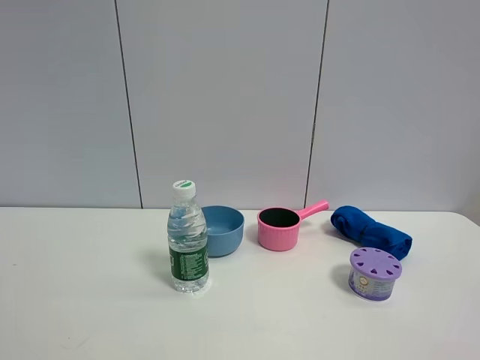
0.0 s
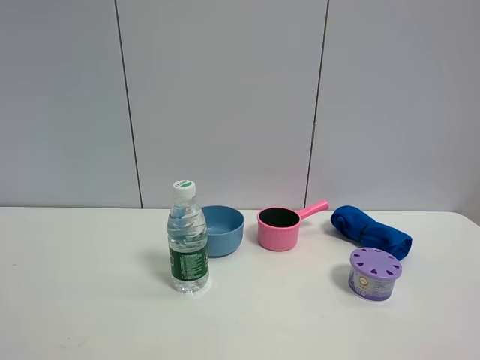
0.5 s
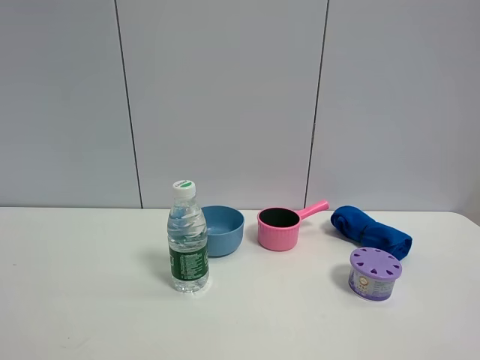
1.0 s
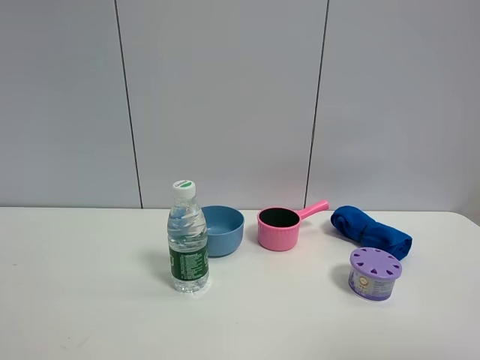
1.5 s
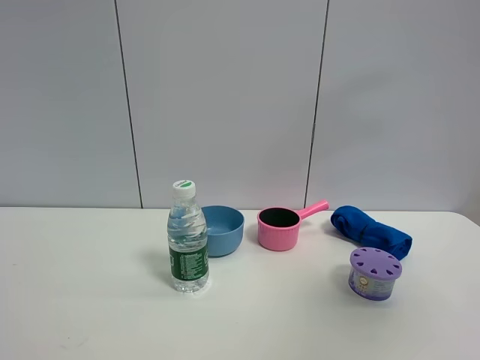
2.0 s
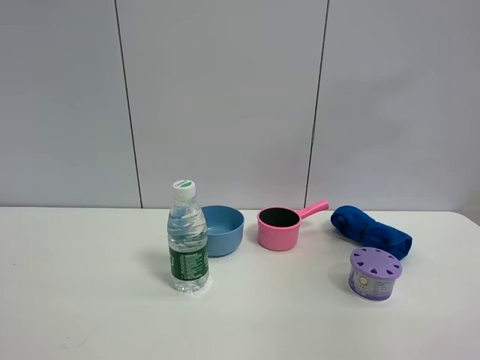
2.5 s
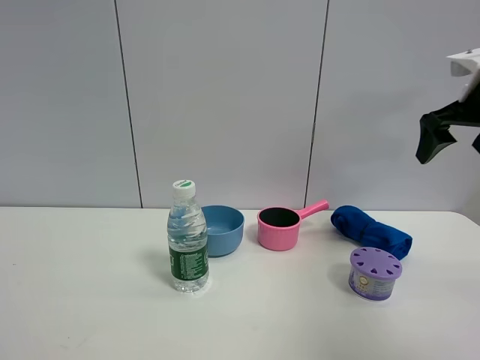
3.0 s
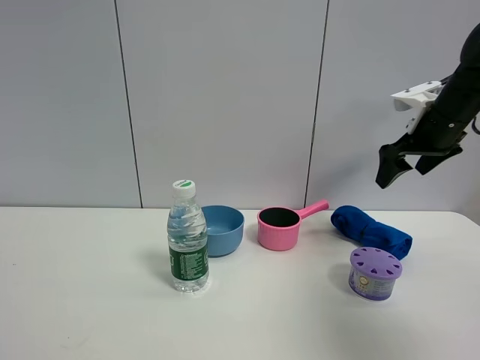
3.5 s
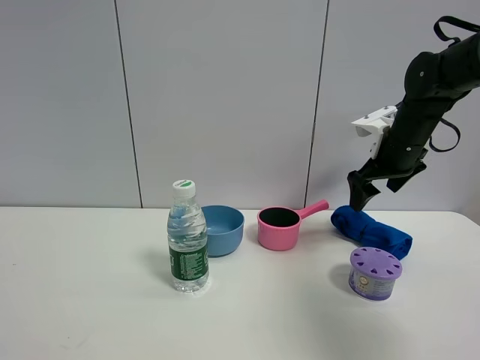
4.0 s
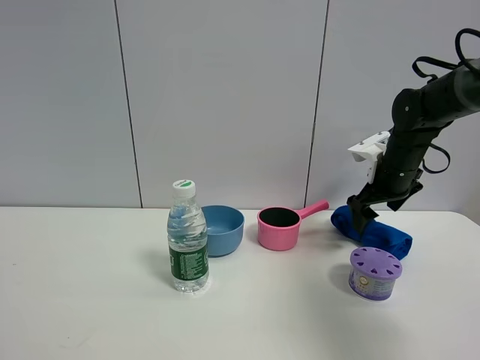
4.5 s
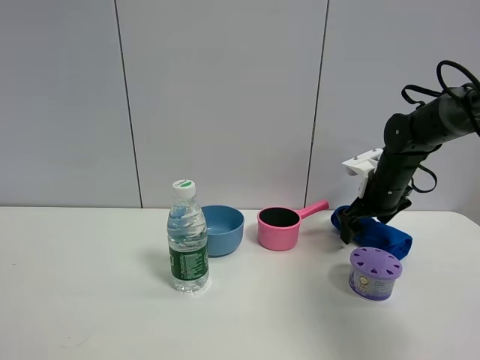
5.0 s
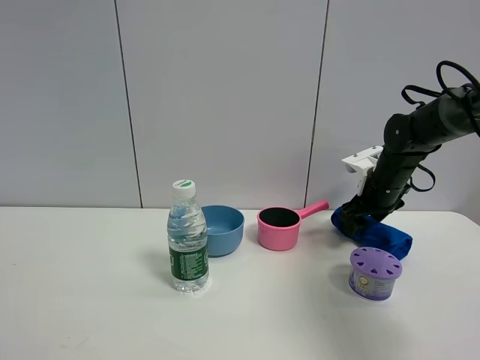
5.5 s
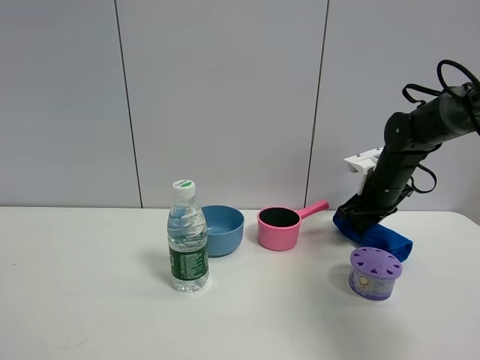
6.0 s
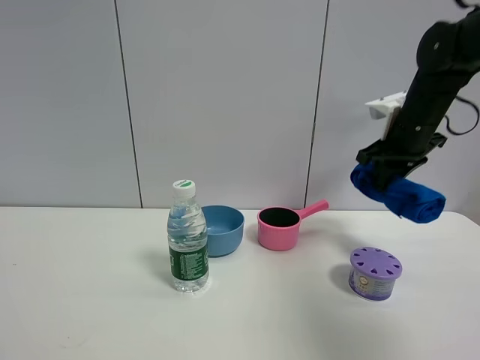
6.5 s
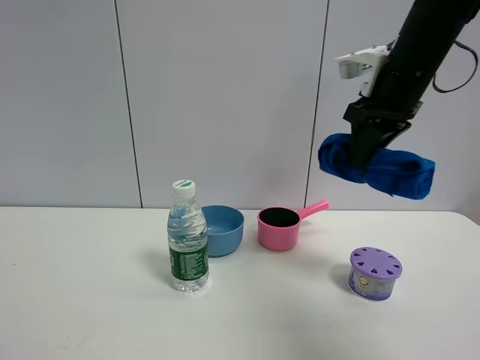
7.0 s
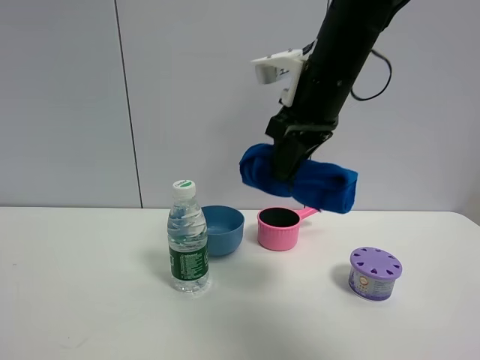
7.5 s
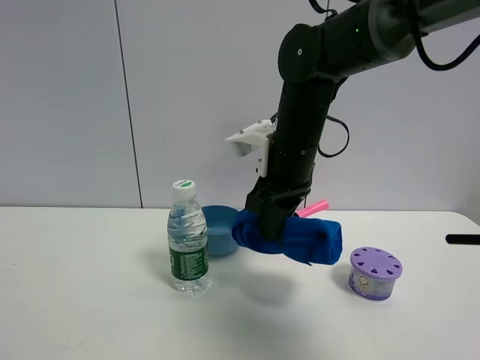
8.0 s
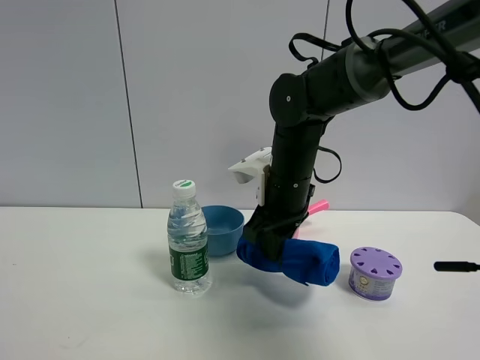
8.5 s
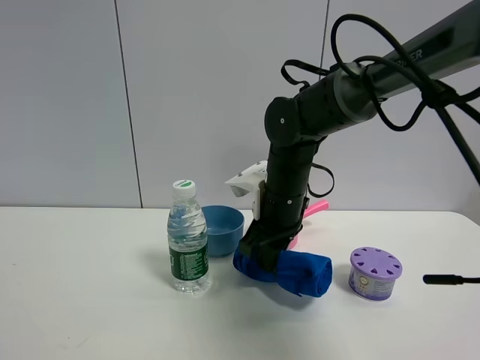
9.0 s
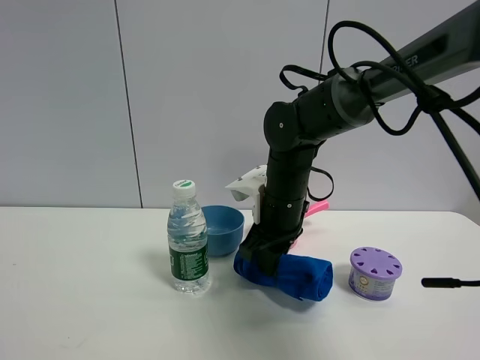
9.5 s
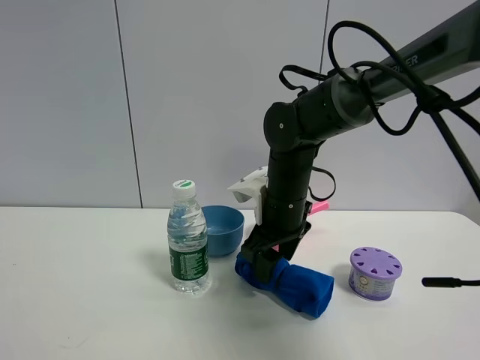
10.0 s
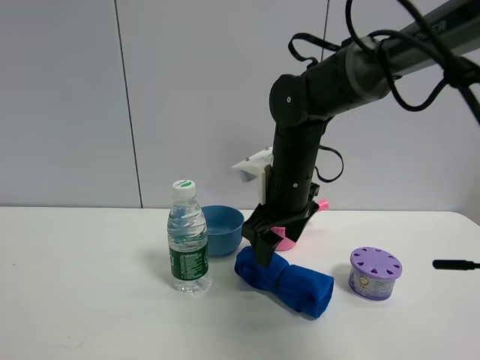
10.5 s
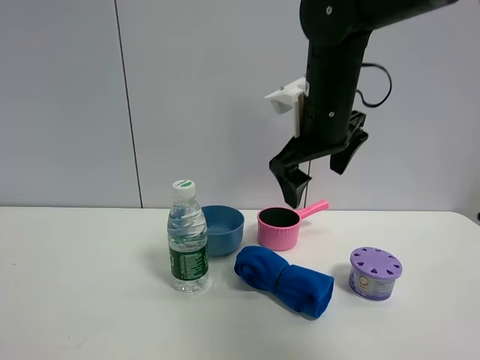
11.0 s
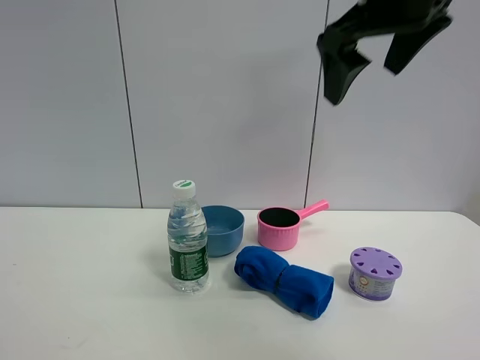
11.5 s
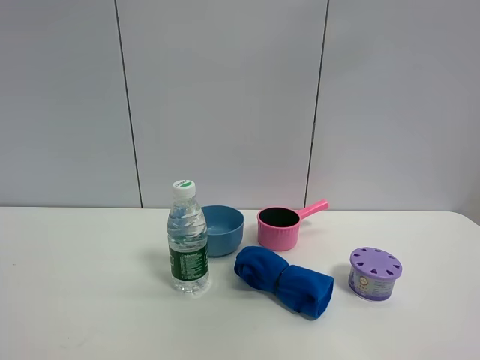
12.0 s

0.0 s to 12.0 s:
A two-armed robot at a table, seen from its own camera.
Task of the whole recording: the gripper move the object.
Step, 0.0 to 6.0 s: Grasp the blue towel with the right gripper.
Step, 6.5 to 10.0 s: Place the blue towel on the table with the right gripper.
0.0 to 2.0 s: The right gripper shifts roughly 20 cm forward and upward.
2.0 to 4.0 s: The right gripper travels forward and downward by some 40 cm.
4.0 to 6.0 s: The right gripper is displaced downward by about 10 cm, and closes.
6.0 to 8.0 s: The right gripper goes roughly 25 cm to the left, backward and upward.
8.0 to 10.0 s: The right gripper heads downward, covering about 5 cm, and opens up.
10.0 to 12.0 s: The right gripper moves upward, backward and to the right, approximately 50 cm, and opens its fingers.

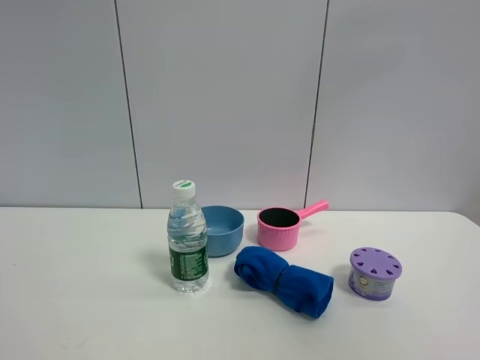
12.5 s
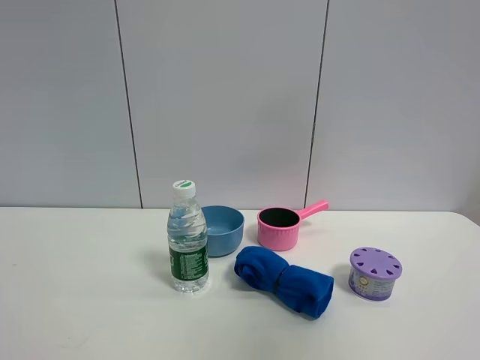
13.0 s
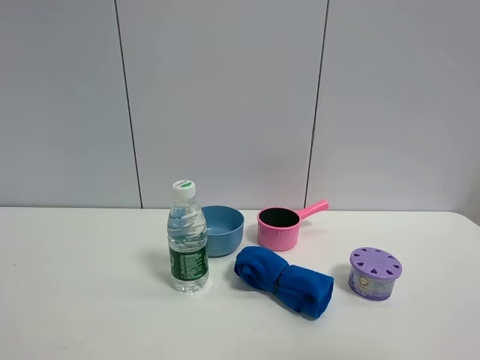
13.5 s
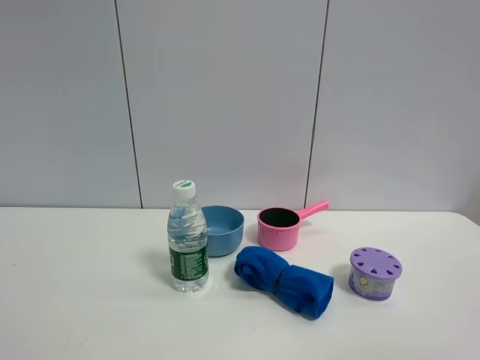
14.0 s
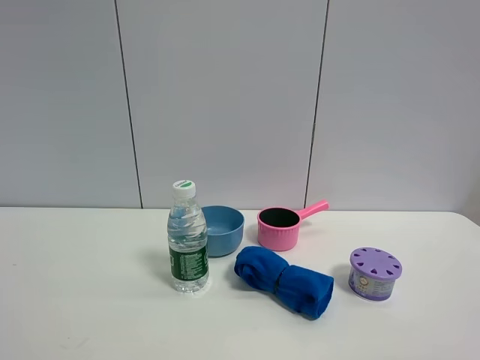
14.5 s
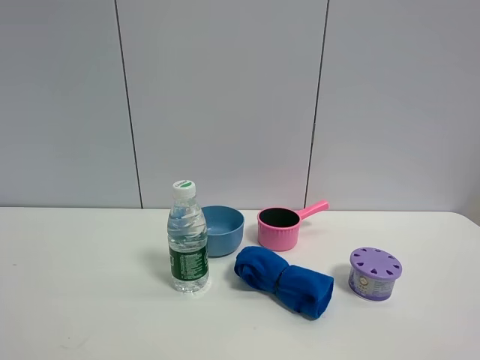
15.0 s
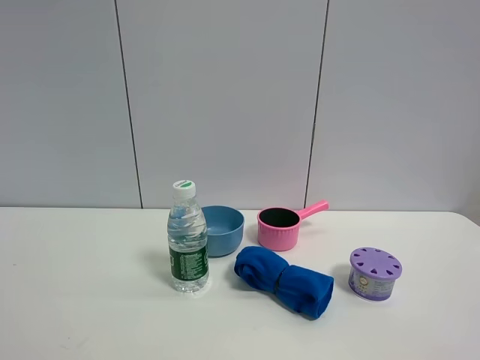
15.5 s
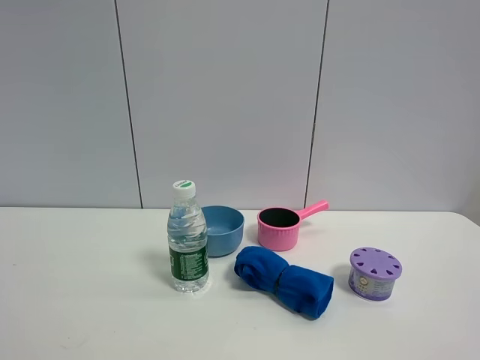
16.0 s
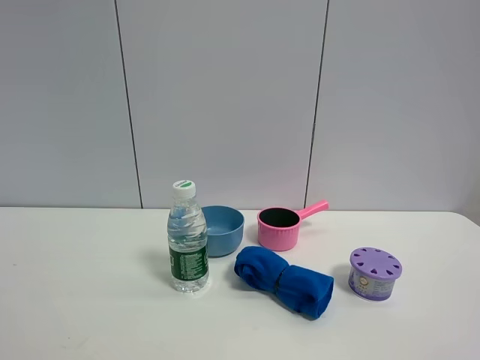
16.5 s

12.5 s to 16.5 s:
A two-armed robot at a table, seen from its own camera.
Task of the whole recording: the gripper move the object.
12.5 to 14.5 s: The right gripper goes about 30 cm downward.

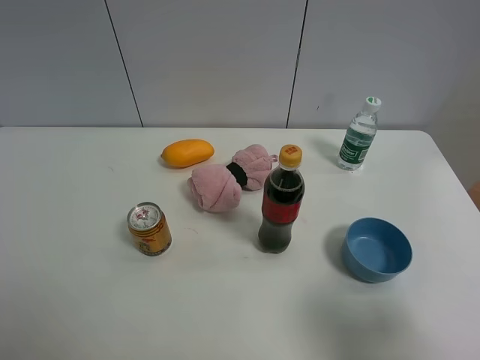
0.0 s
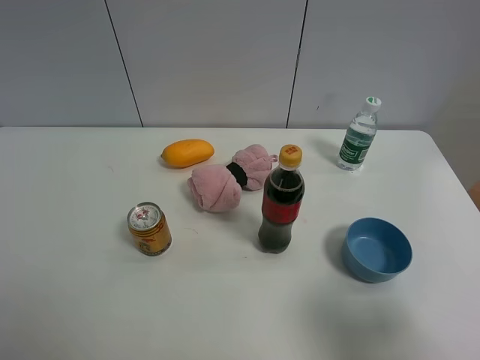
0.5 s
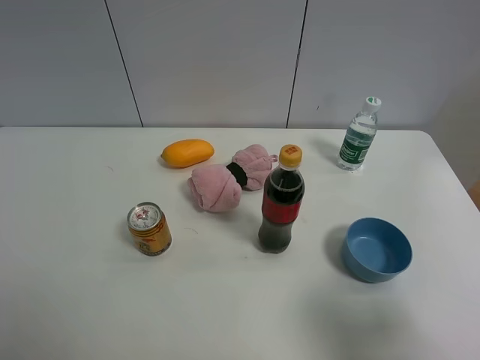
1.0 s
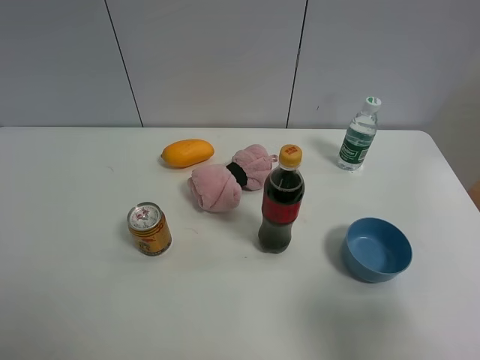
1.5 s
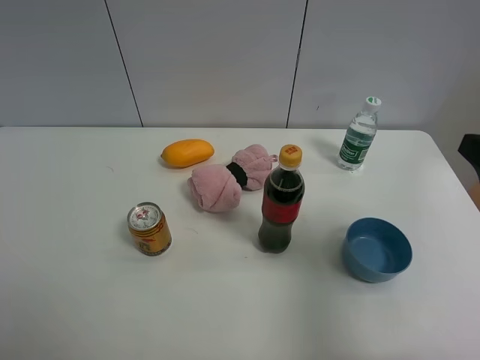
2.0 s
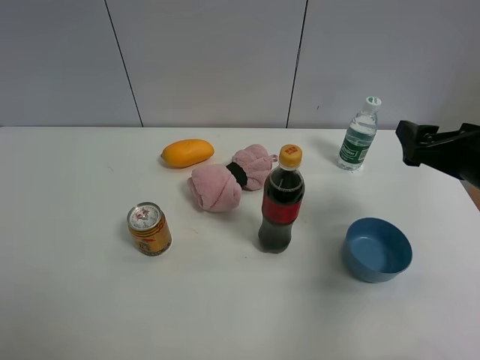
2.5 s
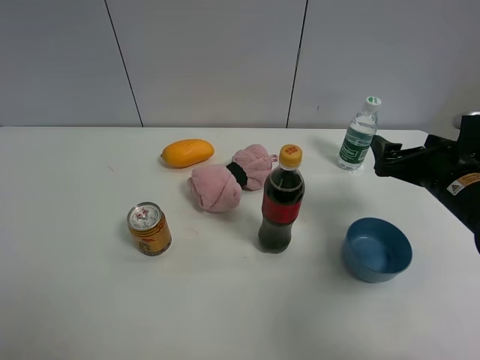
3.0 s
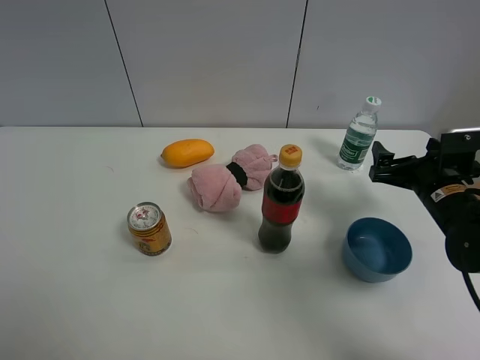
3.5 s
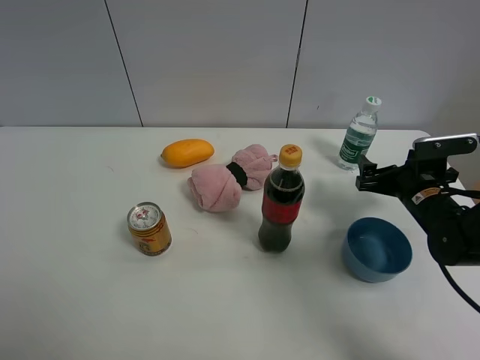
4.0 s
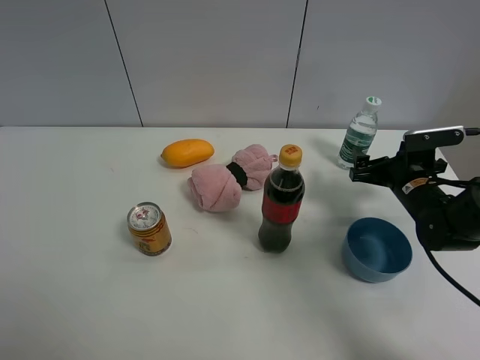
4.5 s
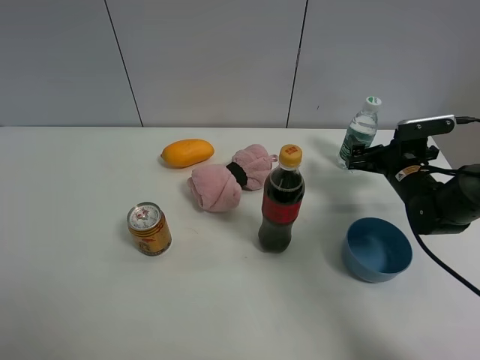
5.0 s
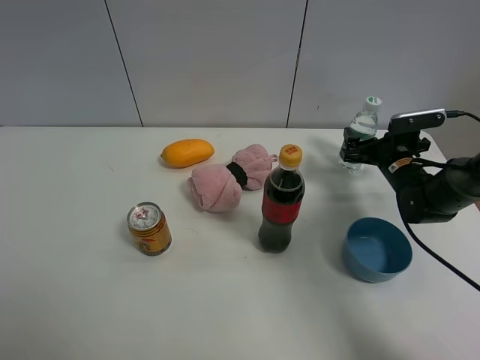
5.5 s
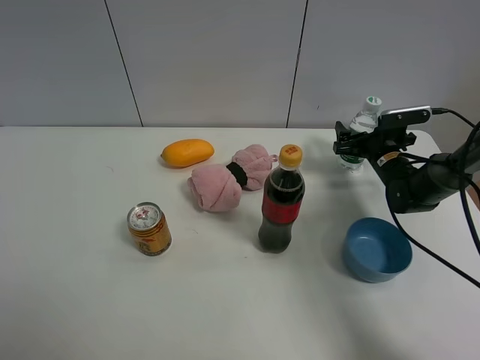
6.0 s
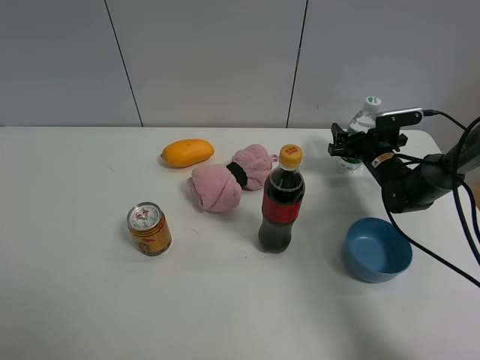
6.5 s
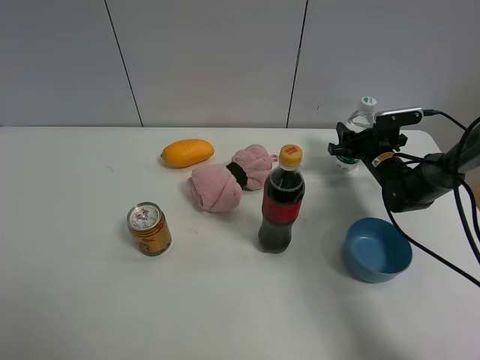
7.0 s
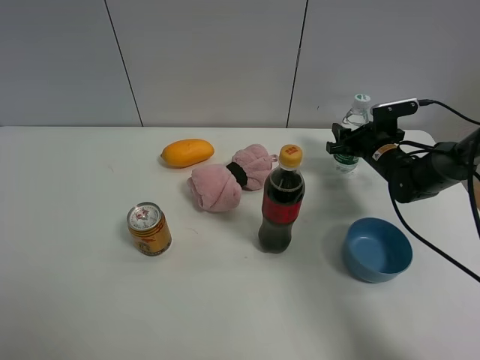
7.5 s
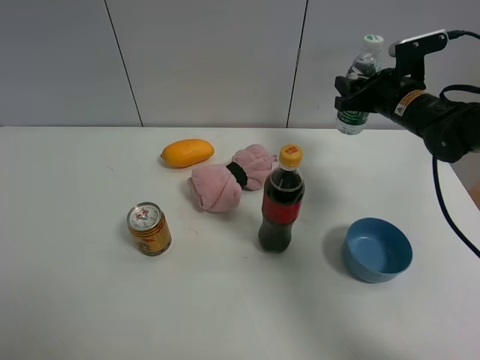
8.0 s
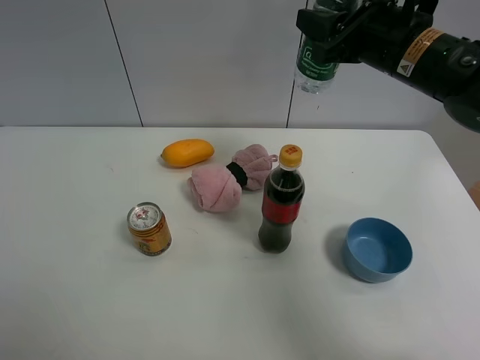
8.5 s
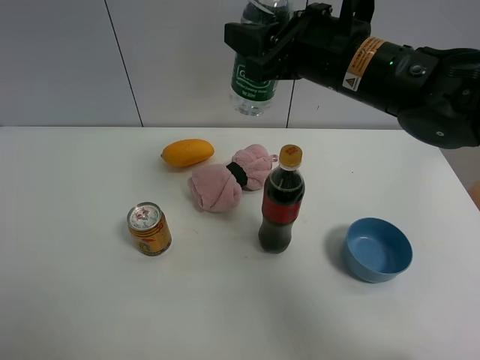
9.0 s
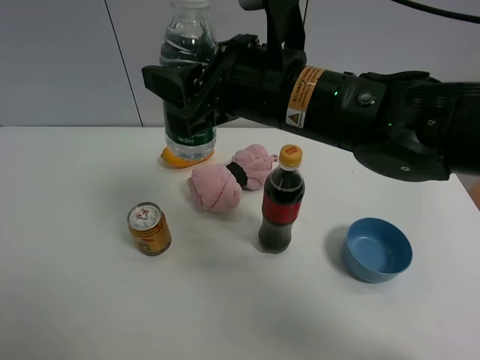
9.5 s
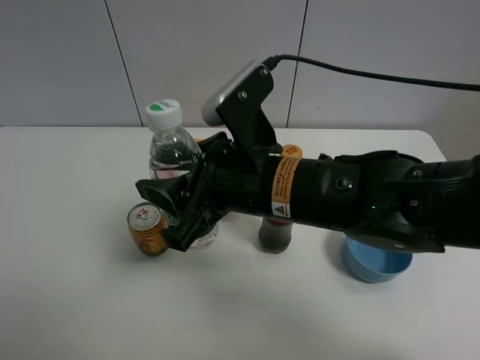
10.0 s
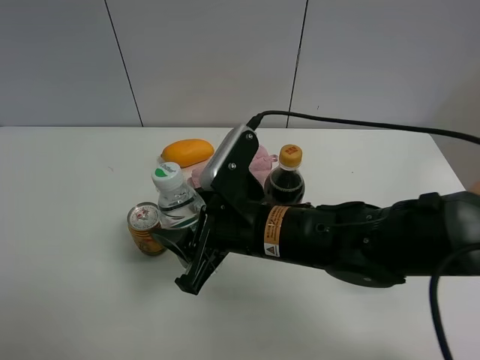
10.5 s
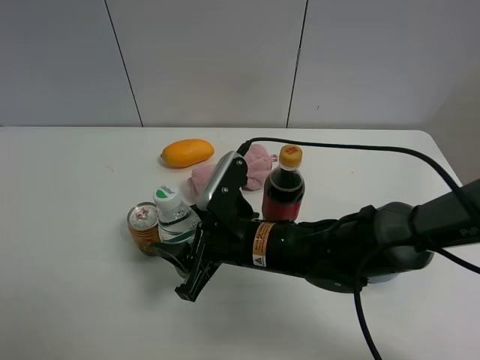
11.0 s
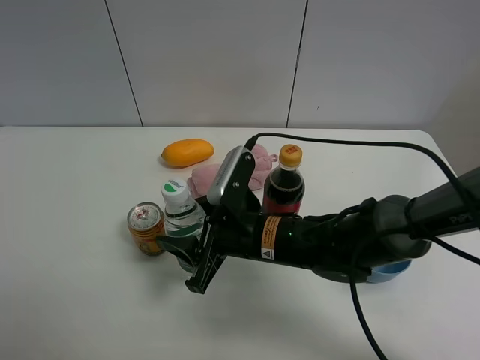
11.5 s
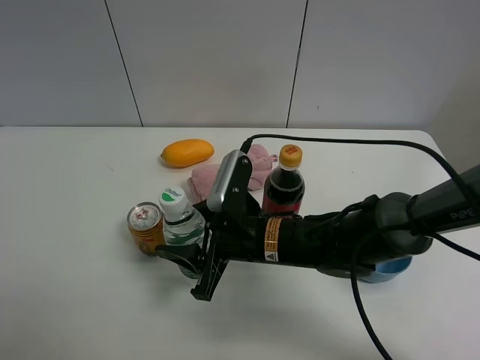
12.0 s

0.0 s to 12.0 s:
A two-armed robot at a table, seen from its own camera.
Task of the whole recording: the gripper move the object.
Step, 0.0 to 7.0 s: Grasp the YiBao mineral water with the right gripper.
0.0 to 2.0 s: The right gripper is displaced forward by some 15 cm.
2.0 to 4.0 s: The right gripper moves downward and forward, approximately 25 cm.
4.0 to 6.0 s: The right gripper is displaced forward by approximately 10 cm.
6.0 to 8.0 s: The right gripper shifts some 15 cm upward, and closes its fingers.
8.0 to 10.0 s: The right gripper shifts roughly 30 cm to the left and backward.
10.0 to 12.0 s: The right gripper moves downward, approximately 10 cm.
